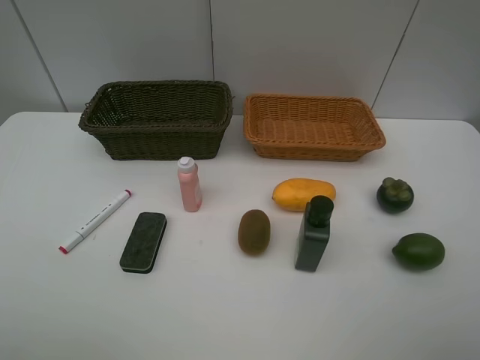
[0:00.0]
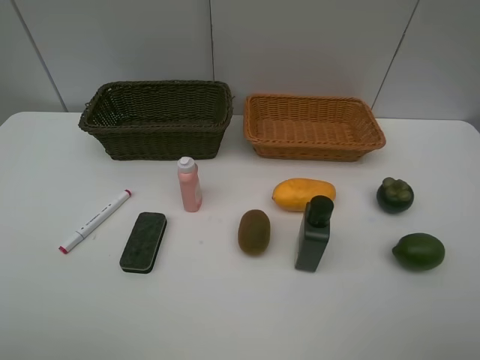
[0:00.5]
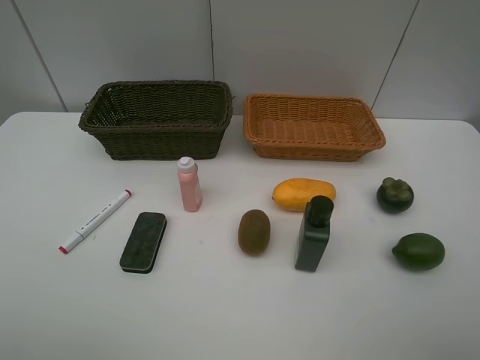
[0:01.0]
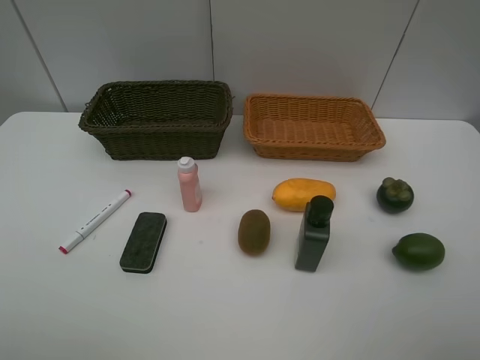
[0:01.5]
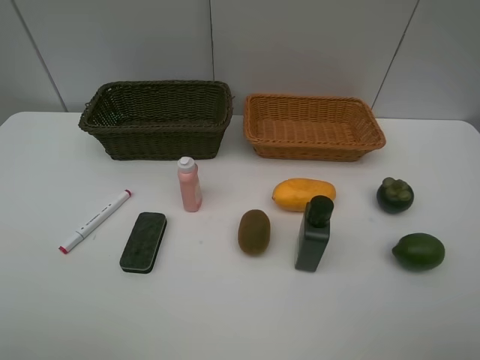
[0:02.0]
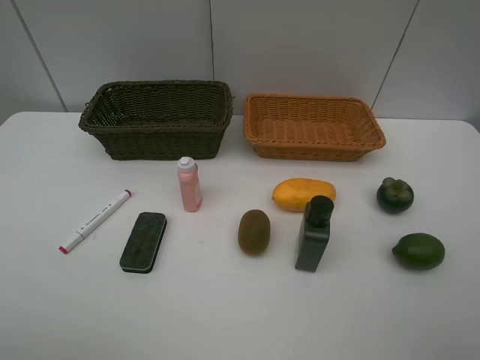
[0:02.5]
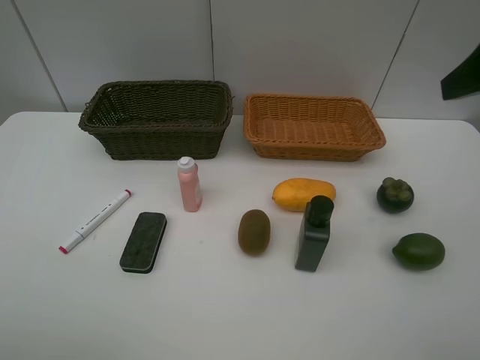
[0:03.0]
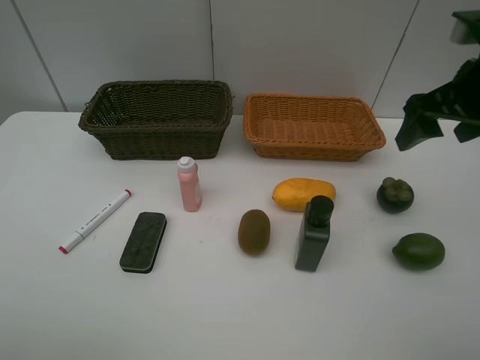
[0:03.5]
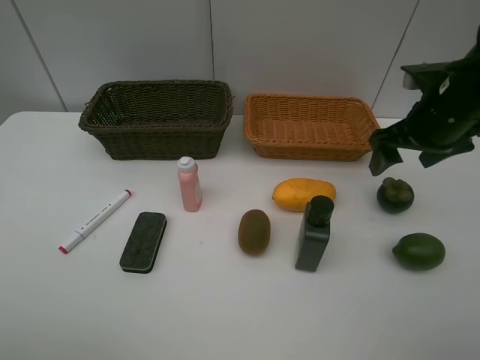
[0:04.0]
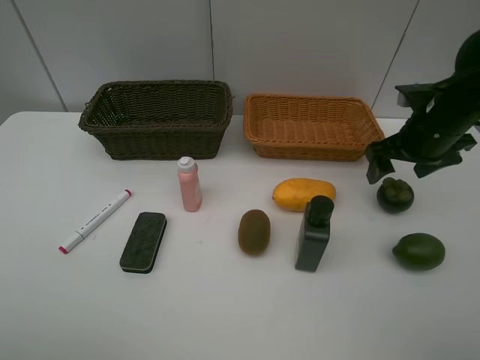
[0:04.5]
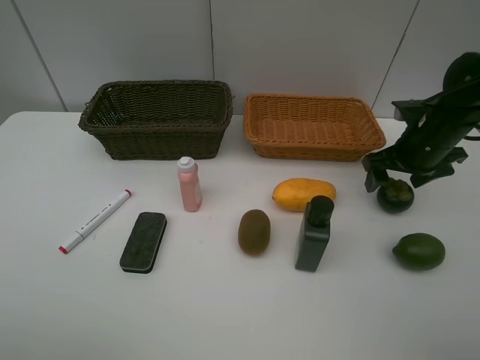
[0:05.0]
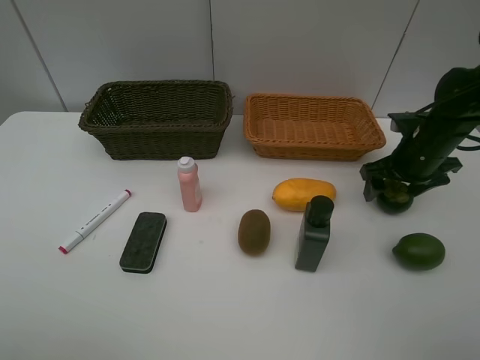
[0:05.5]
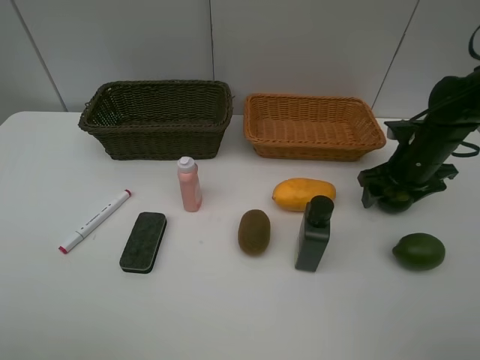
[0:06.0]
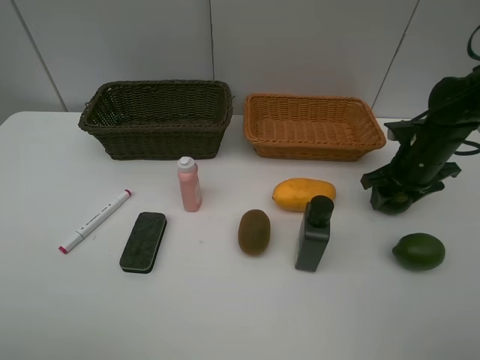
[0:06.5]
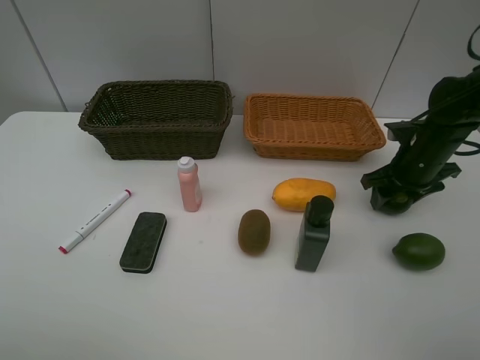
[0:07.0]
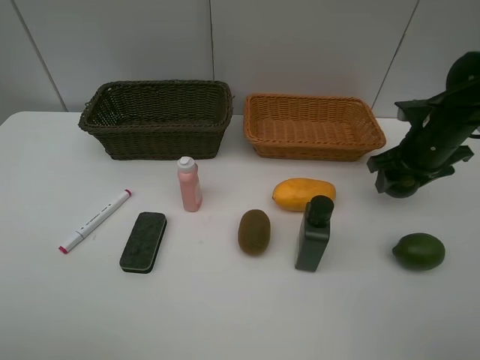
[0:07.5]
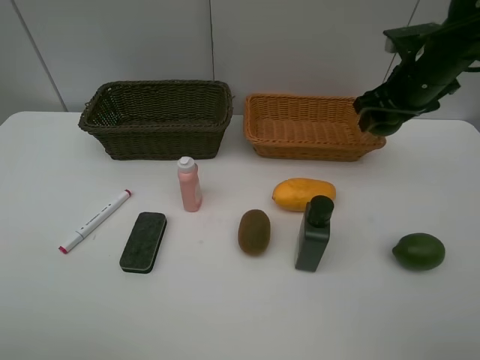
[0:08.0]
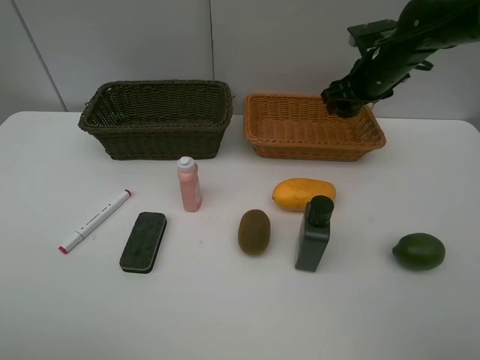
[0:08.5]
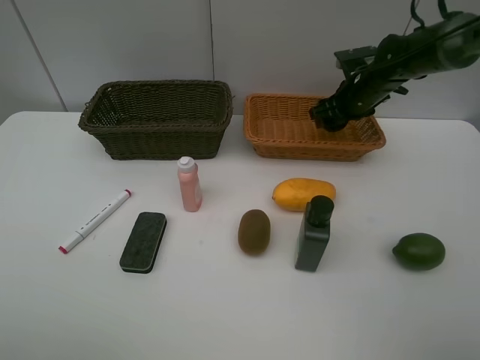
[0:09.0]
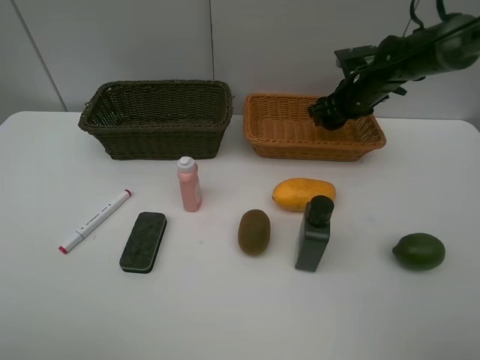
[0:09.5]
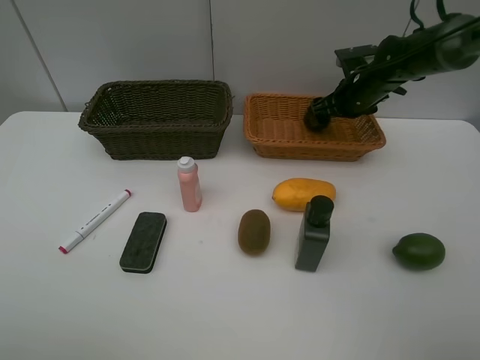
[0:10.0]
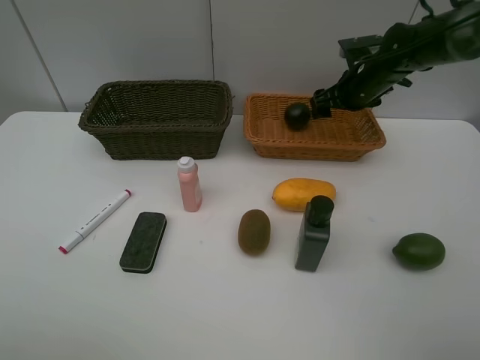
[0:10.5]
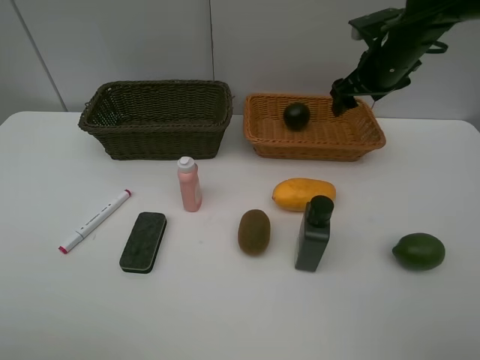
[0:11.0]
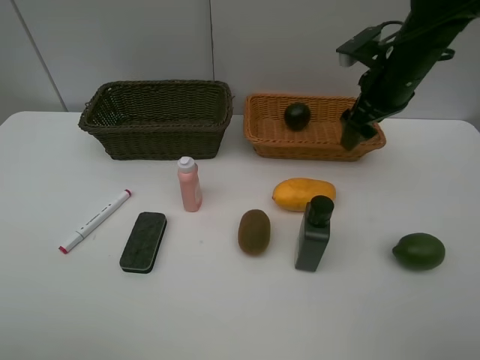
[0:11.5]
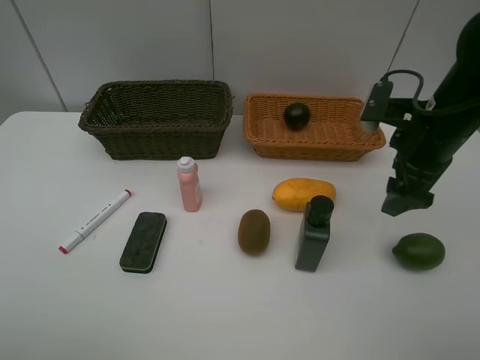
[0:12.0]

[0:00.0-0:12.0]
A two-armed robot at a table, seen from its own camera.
Task of the whole recording: Place multiple objects separately in different baskets.
Step, 0:00.0 to 0:07.5: Pick up the mangosteen with right gripper.
Step, 0:08.0 to 0:10.0: Place the mangosteen in the light basket with right gripper.
0:00.0 to 0:02.0: The two grippers keep their place.
0:02.0 to 0:04.0: The right gripper moves forward, about 30 cm.
0:04.0 to 0:06.0: The right gripper moves downward, approximately 10 cm.
0:06.0 to 0:08.0: The right gripper moves upward, about 10 cm, and closes its fingers.
0:08.0 to 0:10.0: The right gripper heads forward and downward, covering roughly 15 cm, and opens its fingers.
0:10.0 to 0:12.0: The right gripper shifts some 20 cm backward.

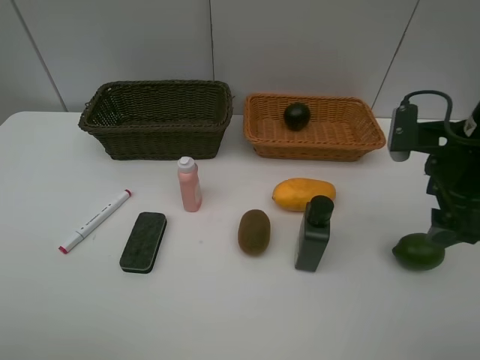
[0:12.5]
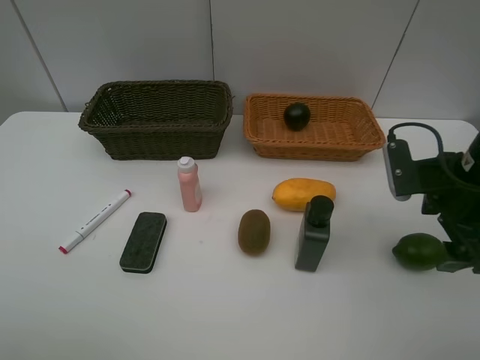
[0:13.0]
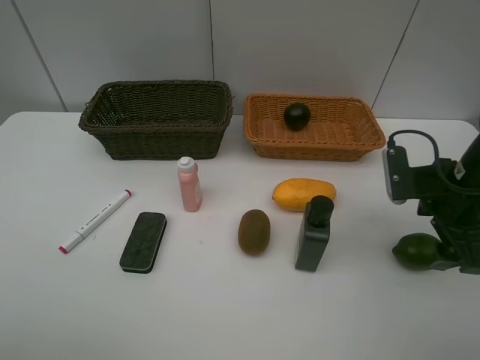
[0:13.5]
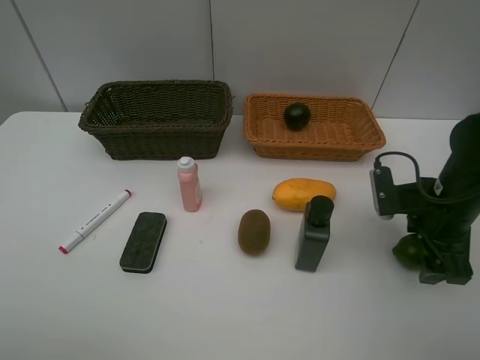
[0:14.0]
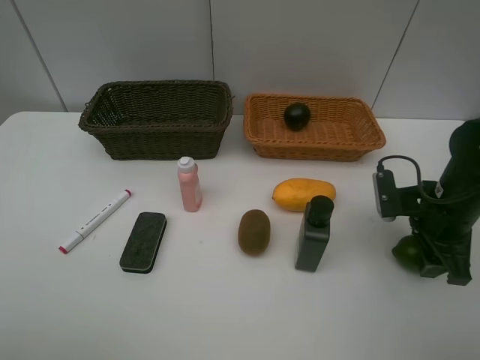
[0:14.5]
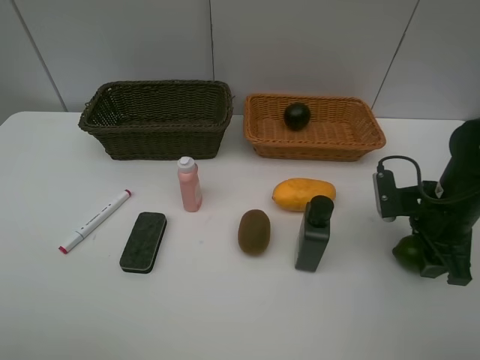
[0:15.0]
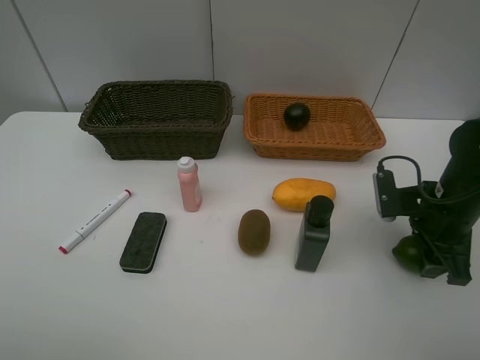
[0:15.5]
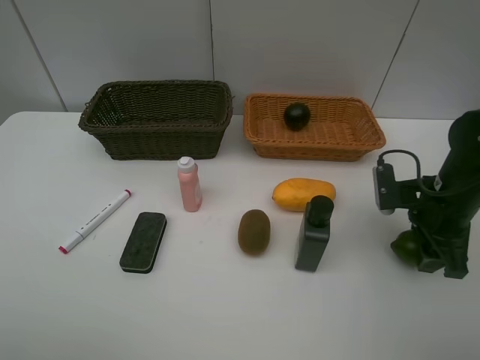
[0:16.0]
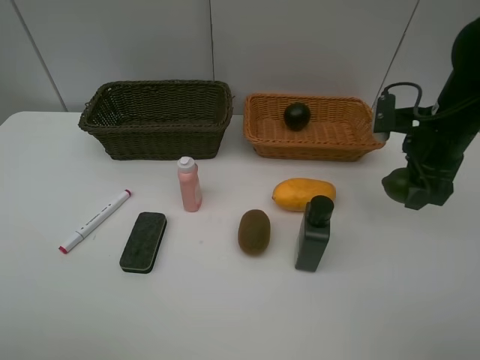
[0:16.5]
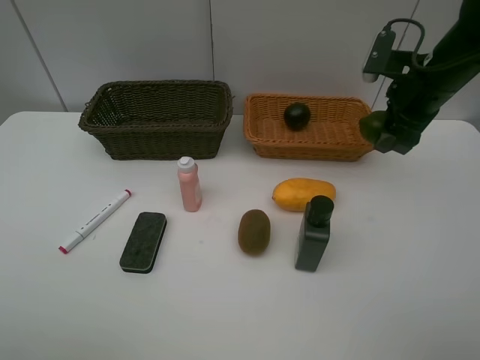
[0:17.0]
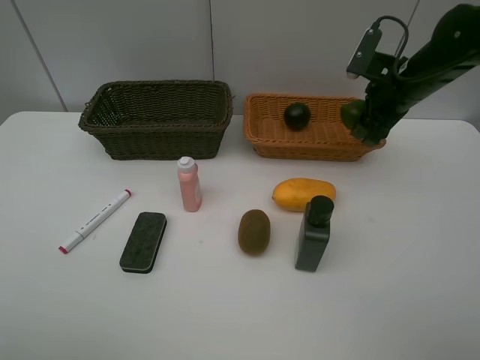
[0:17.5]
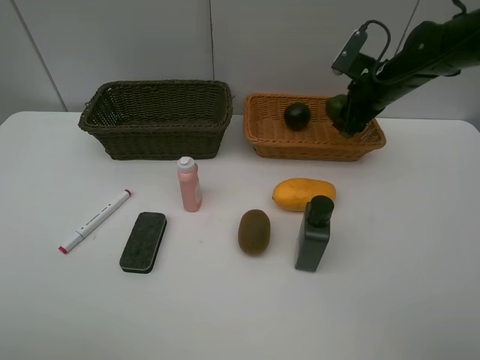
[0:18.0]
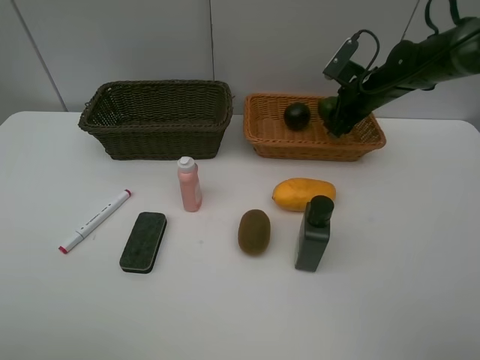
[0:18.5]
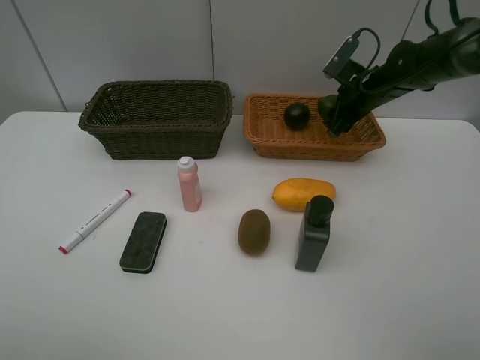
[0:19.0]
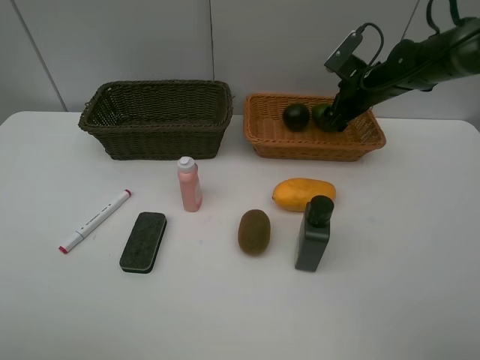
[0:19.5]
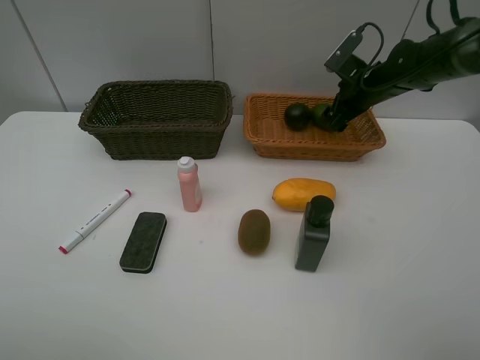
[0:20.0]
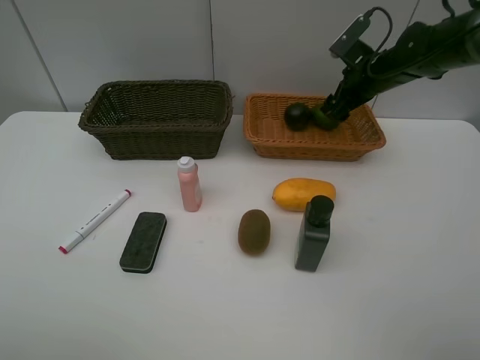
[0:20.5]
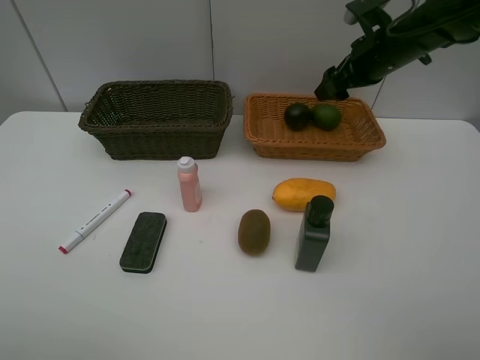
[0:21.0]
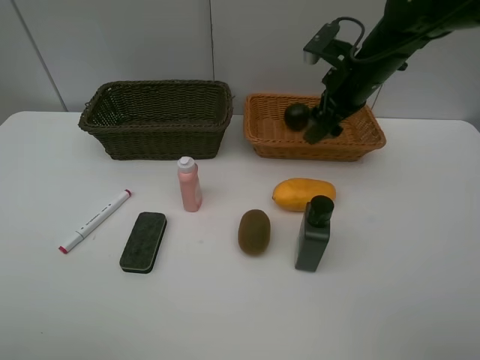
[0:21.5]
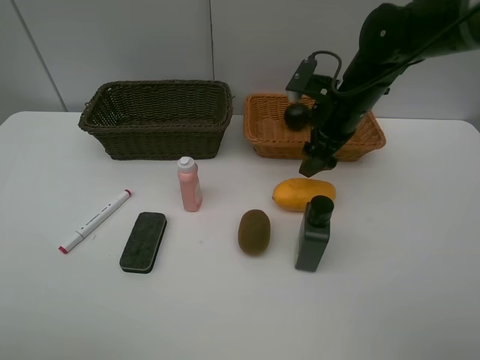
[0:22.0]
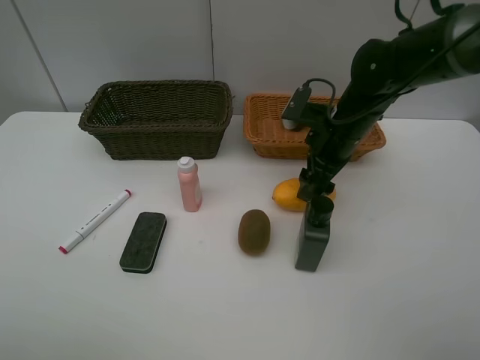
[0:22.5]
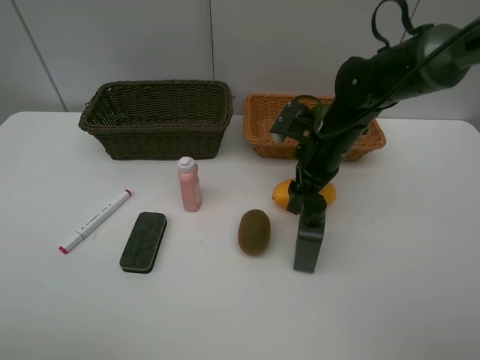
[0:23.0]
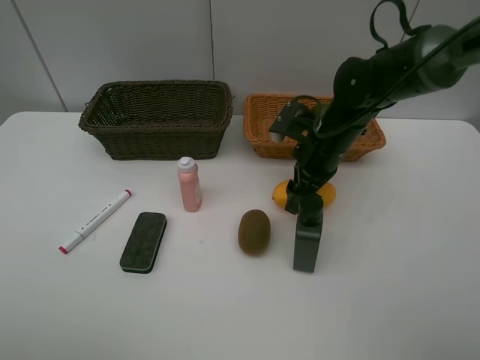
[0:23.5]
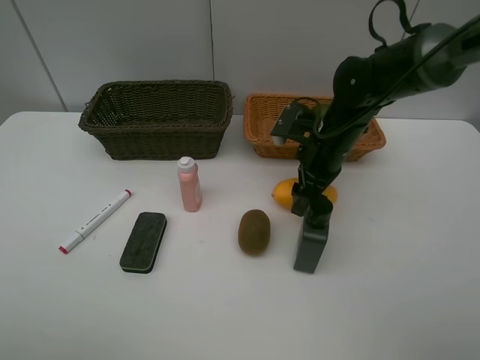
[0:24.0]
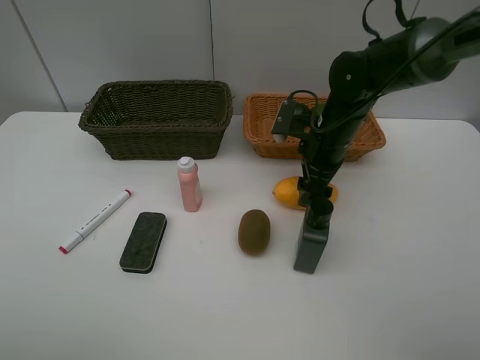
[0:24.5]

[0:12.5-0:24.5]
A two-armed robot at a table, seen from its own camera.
Task of the whole recording: Place multiple objects separately in different baskets.
Step, 0:12.5 to 0:16.0: Pick up the lime with right gripper.
Step, 0:16.5 to 0:20.5: Place the lime in the light basket with right gripper.
0:12.5 to 0:14.5: The right gripper goes about 10 cm downward, and closes.
0:14.5 to 0:16.5: The right gripper travels upward and forward by approximately 10 cm.
0:16.5 to 0:18.5: The right gripper moves forward, roughly 15 cm.
0:18.5 to 0:20.5: The right gripper opens up.
0:20.5 to 0:22.5: The right gripper heads backward and to the left, covering some 15 cm.
0:22.5 to 0:24.5: The grippers move only a little.

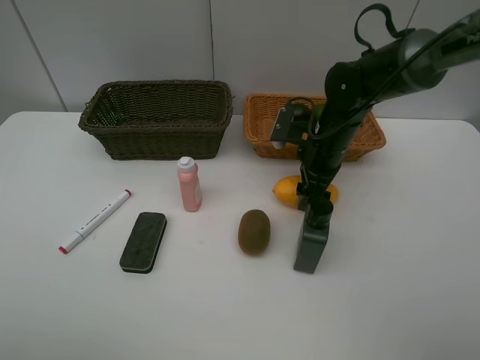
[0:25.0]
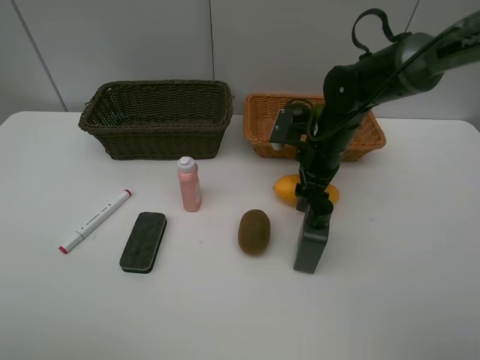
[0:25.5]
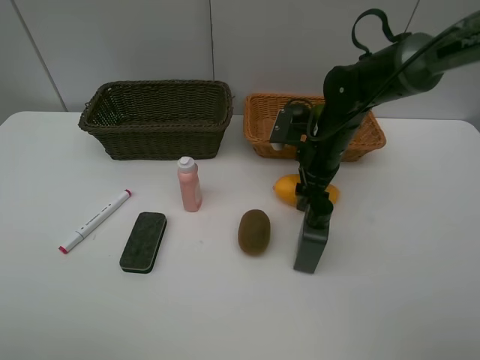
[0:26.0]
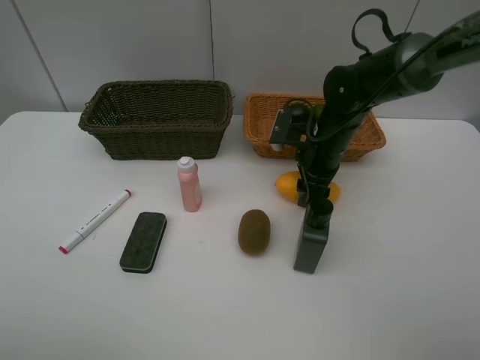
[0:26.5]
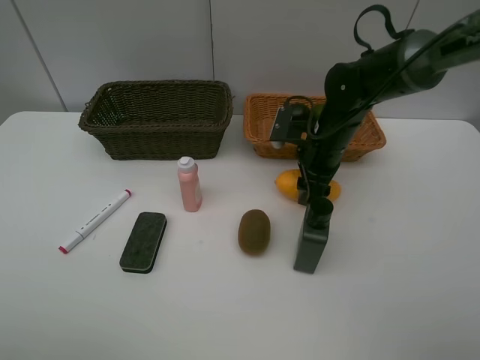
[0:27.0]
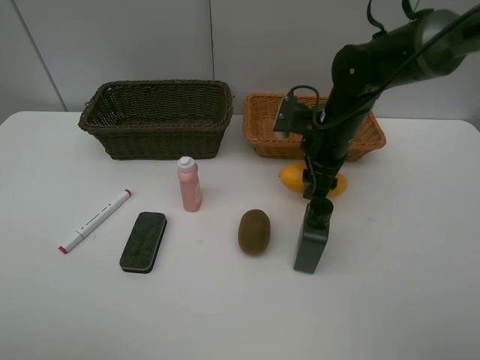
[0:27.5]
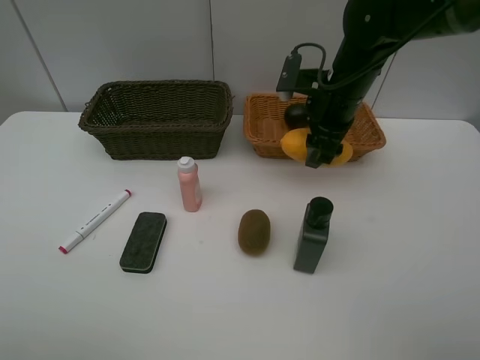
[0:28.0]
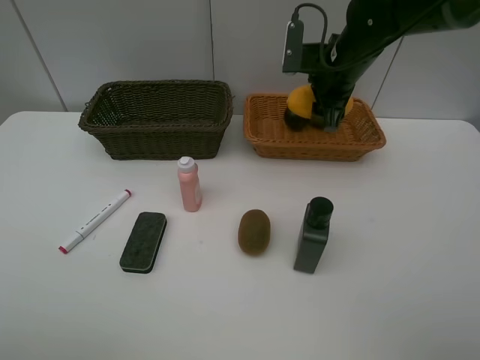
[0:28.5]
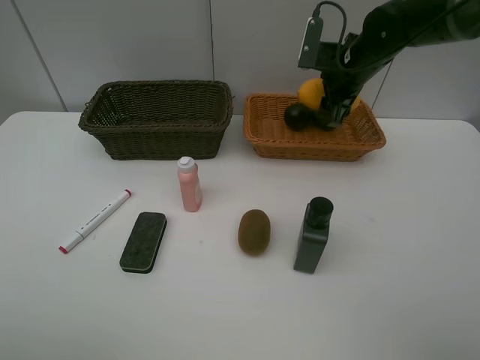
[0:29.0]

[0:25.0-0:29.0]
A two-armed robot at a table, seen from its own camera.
Task of the whole recording: Place multiple objects separately in different baskets.
Step, 0:25.0 to 0:27.5: Pick up the mango with right gripper.
0:27.0 to 0:29.0: The right gripper moves upward and forward, roughly 10 cm.
